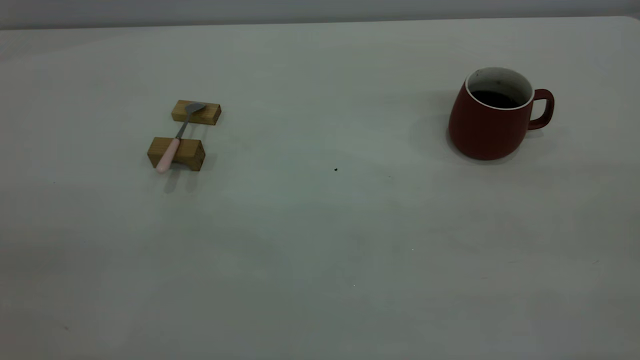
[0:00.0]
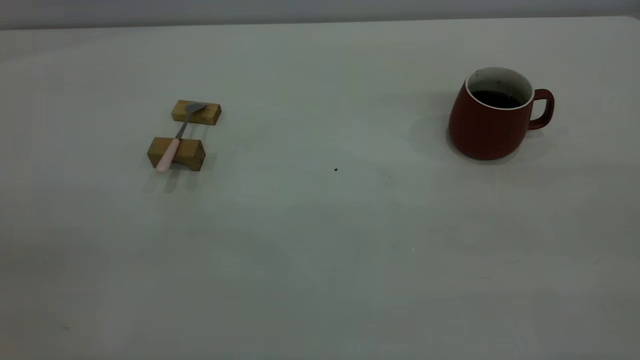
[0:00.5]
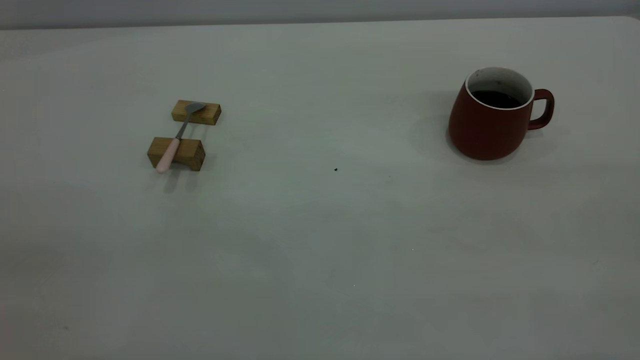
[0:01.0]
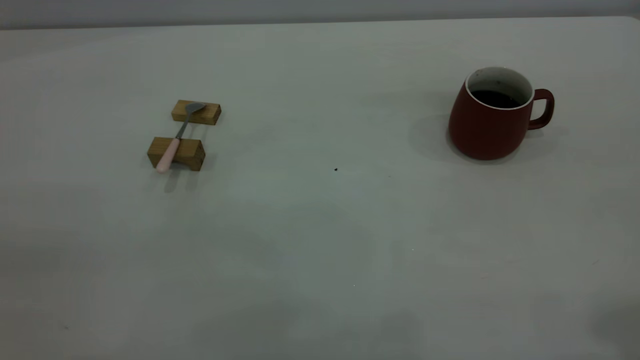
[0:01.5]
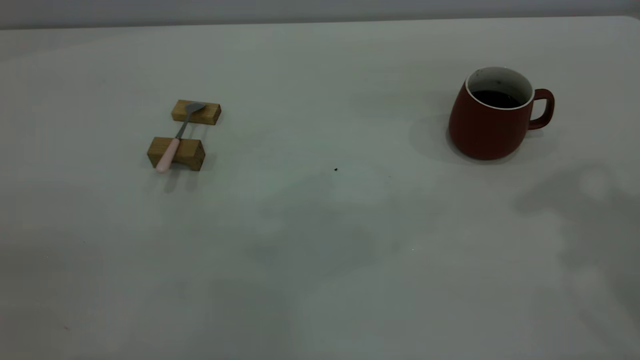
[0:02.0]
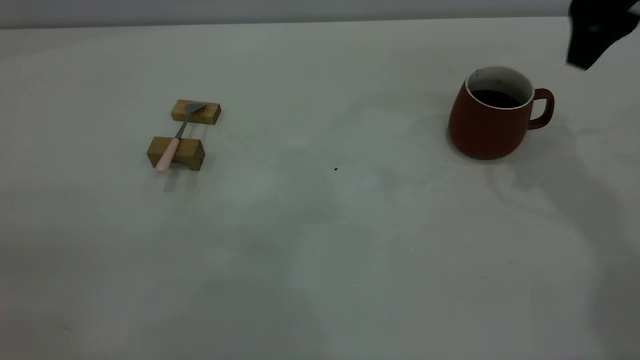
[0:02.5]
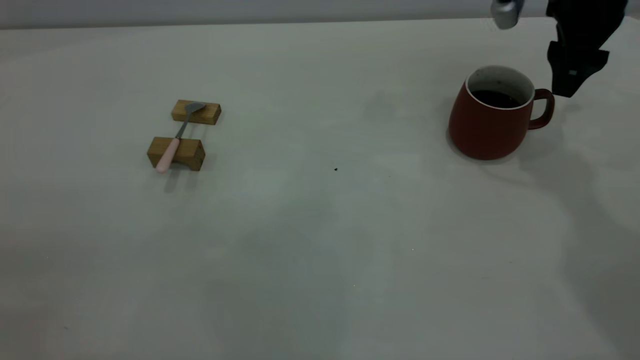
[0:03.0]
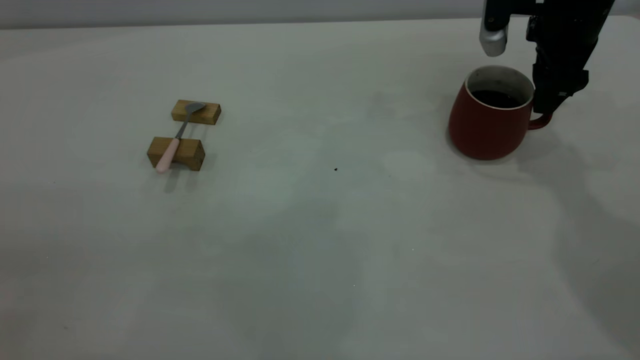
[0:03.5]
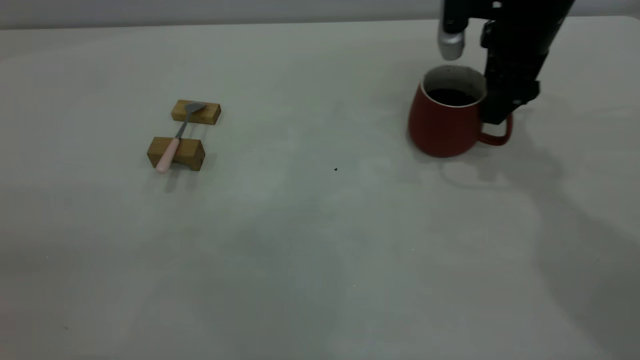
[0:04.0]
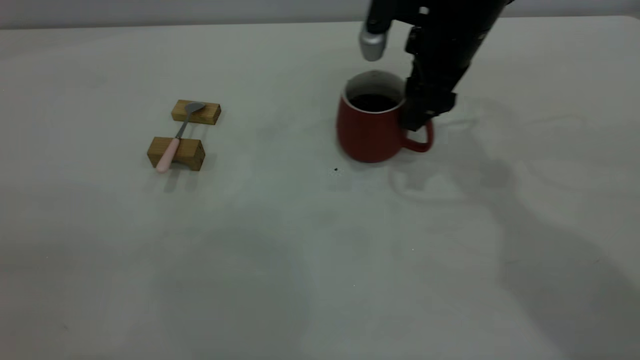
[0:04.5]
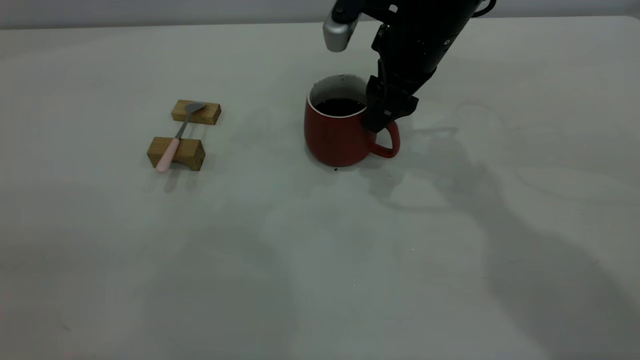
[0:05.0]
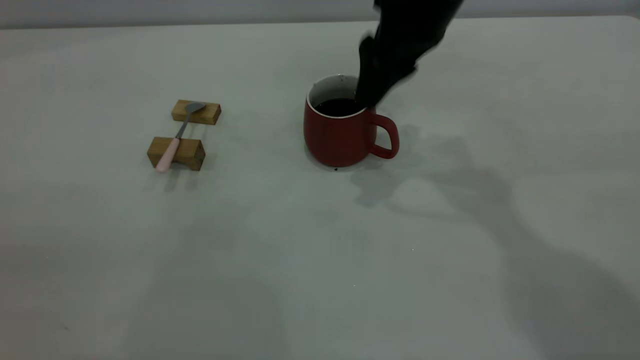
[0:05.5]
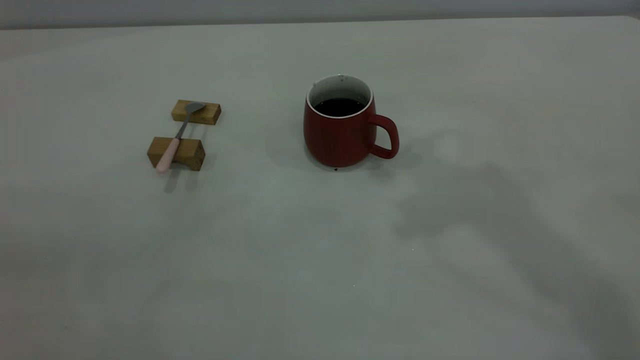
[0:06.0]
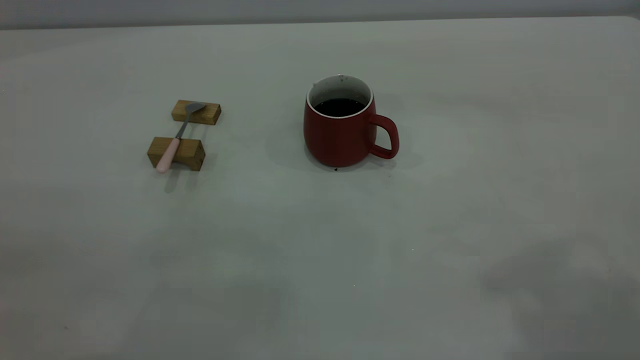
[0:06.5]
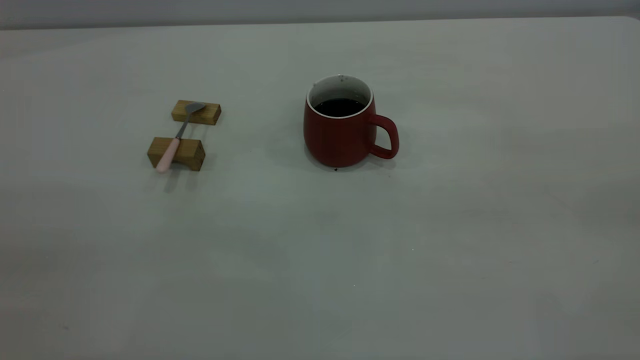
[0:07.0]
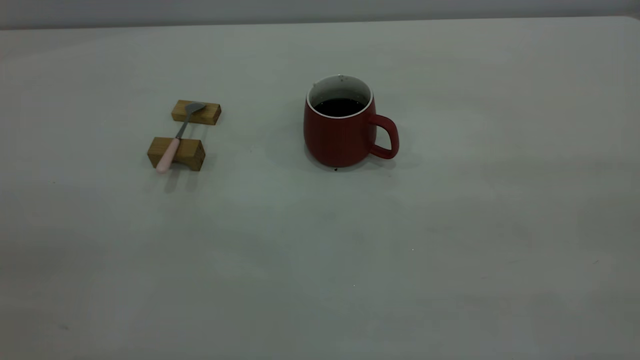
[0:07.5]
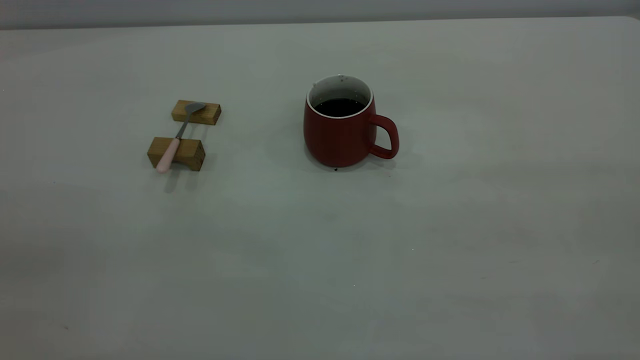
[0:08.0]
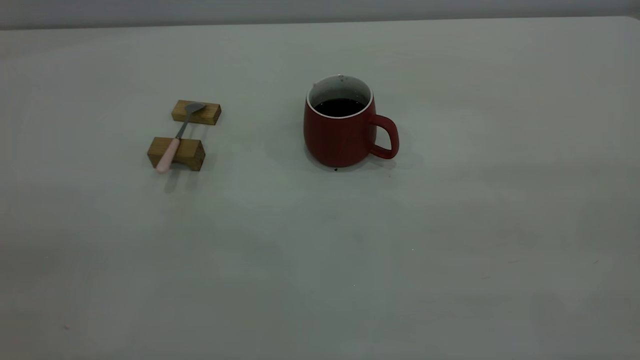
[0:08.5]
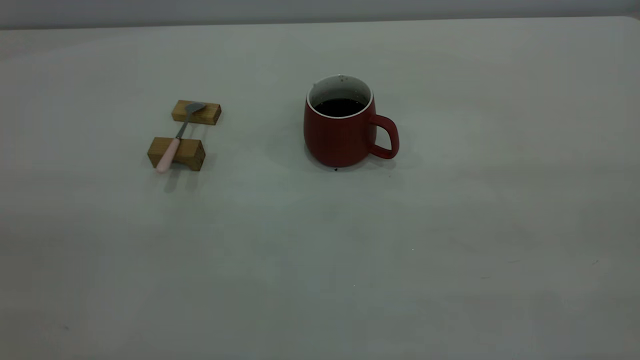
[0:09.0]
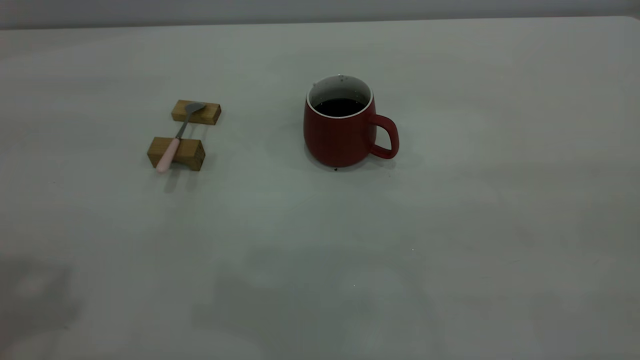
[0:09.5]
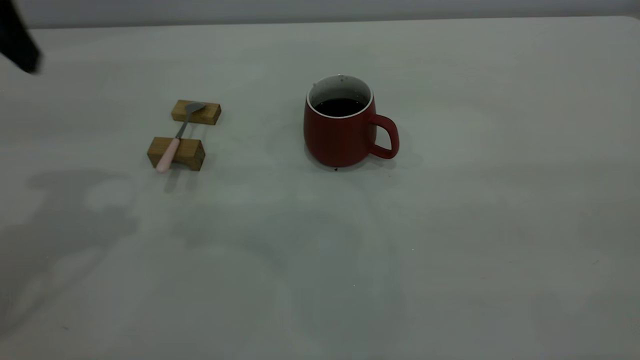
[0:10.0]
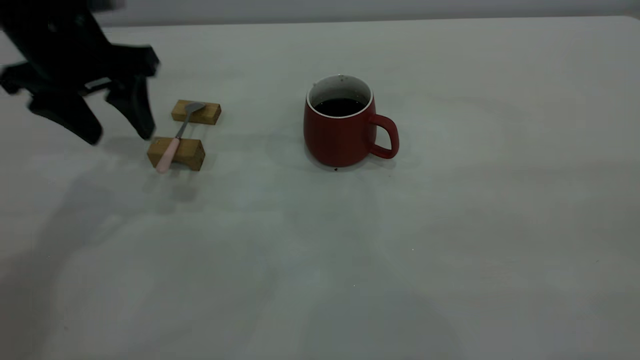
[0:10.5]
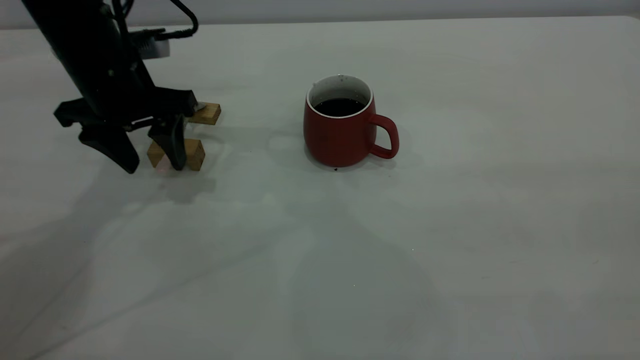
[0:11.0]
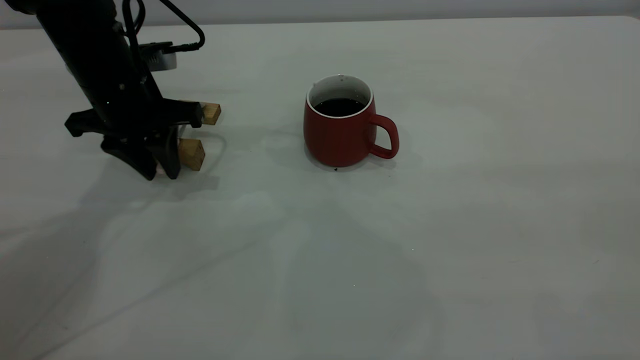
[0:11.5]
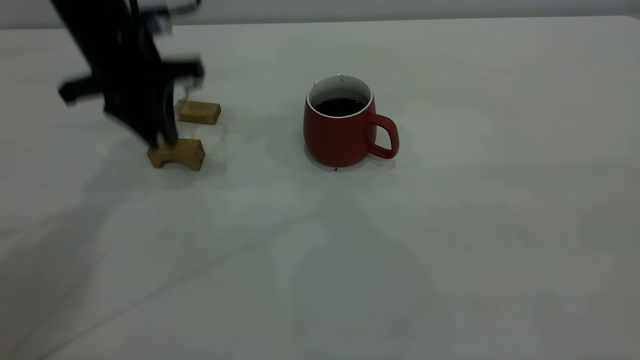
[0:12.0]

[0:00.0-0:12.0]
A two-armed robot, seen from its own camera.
Step, 0:00.0 to 0:05.5: Move the cup with coffee to the center of view.
Step, 0:06.0 to 0:12.0: Pick up the spoon.
0:02.0 to 0:04.0: The right gripper shifts some 25 cm downward, forward and to the left.
0:04.0 to 0:06.0: The right gripper is displaced upward and backward by approximately 30 cm.
0:08.0 to 0:10.0: The left gripper heads forward, covering approximately 30 cm, and opens its fingers.
0:10.0 to 0:12.0: The left gripper goes approximately 15 cm downward, forward and to the right, and closes up.

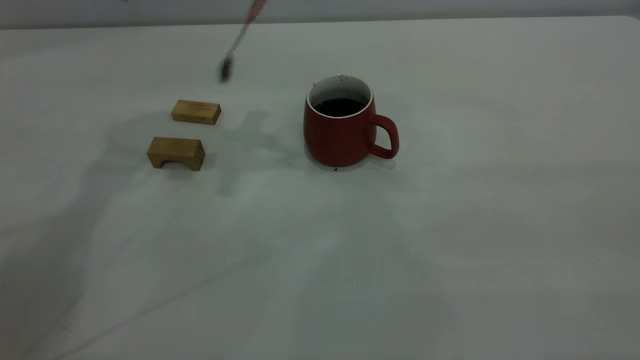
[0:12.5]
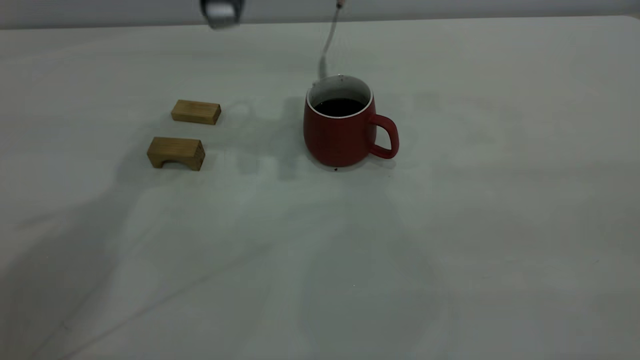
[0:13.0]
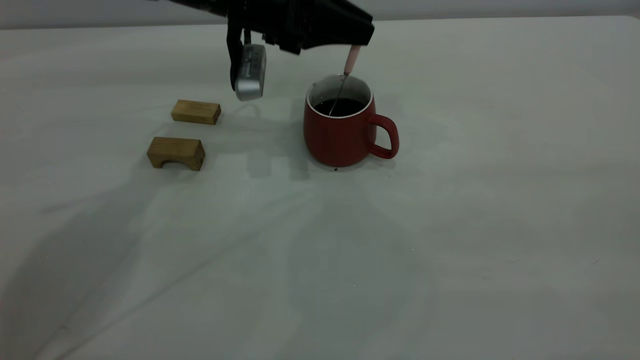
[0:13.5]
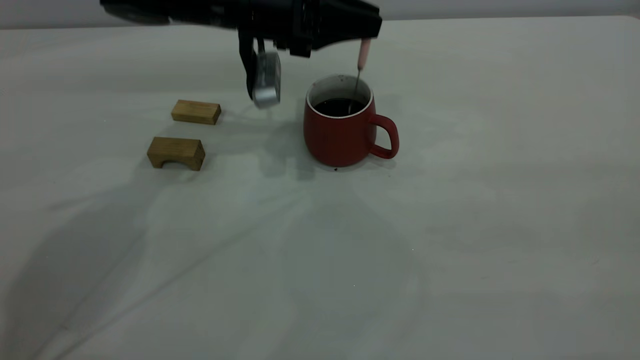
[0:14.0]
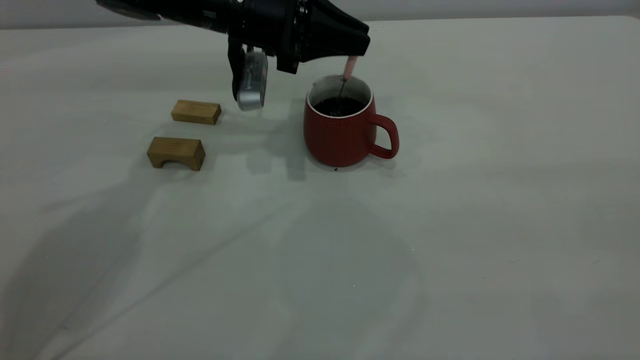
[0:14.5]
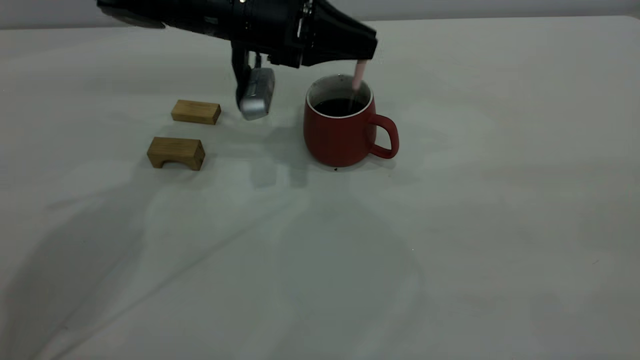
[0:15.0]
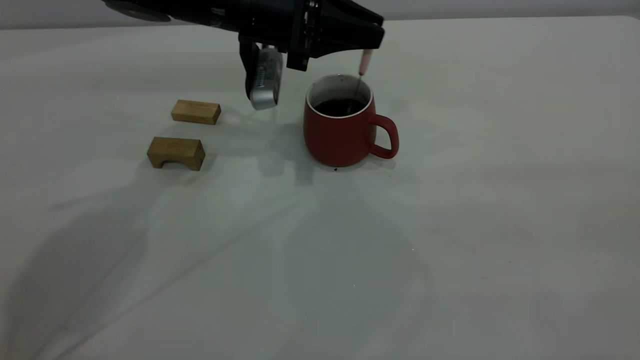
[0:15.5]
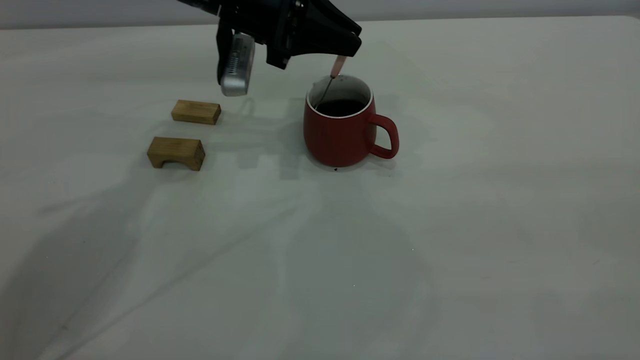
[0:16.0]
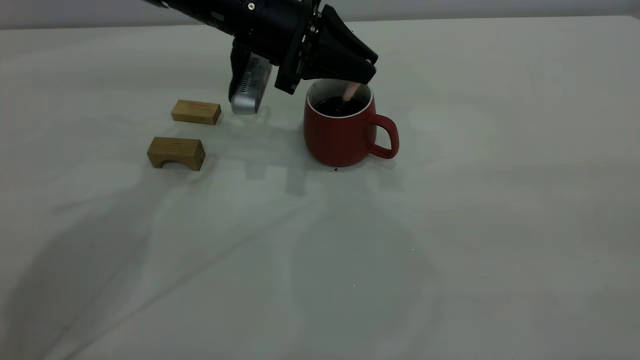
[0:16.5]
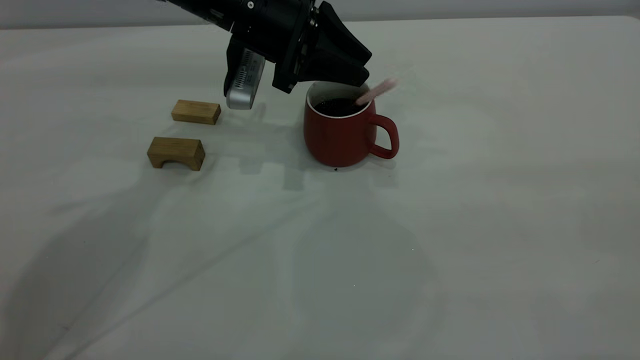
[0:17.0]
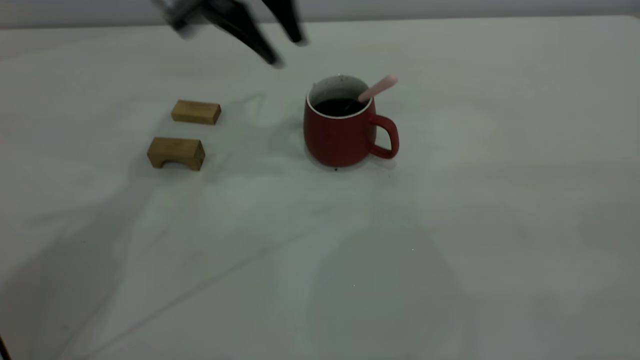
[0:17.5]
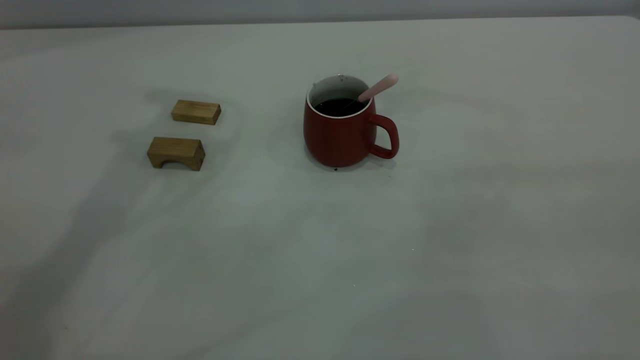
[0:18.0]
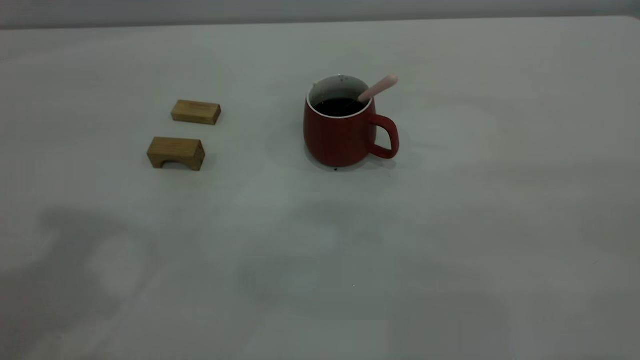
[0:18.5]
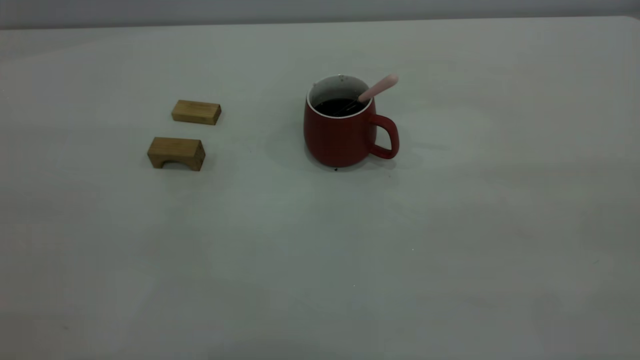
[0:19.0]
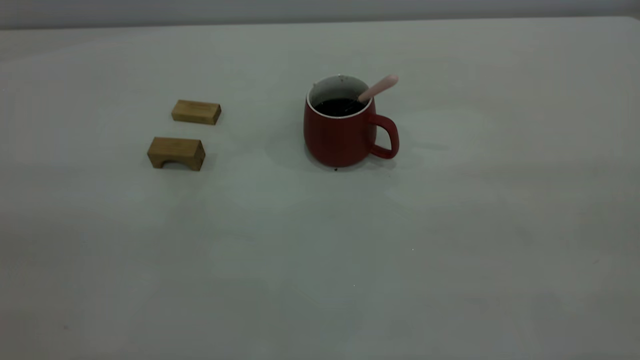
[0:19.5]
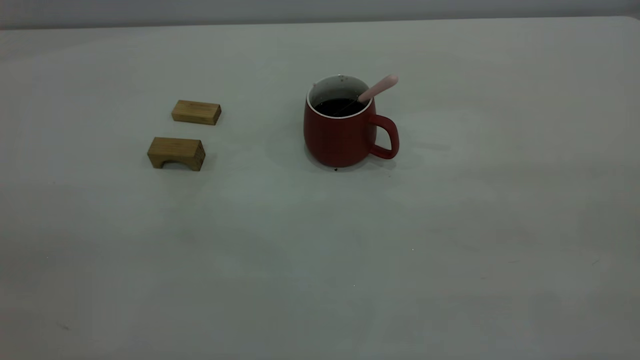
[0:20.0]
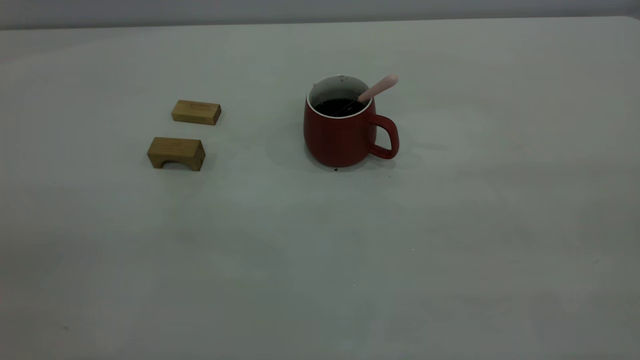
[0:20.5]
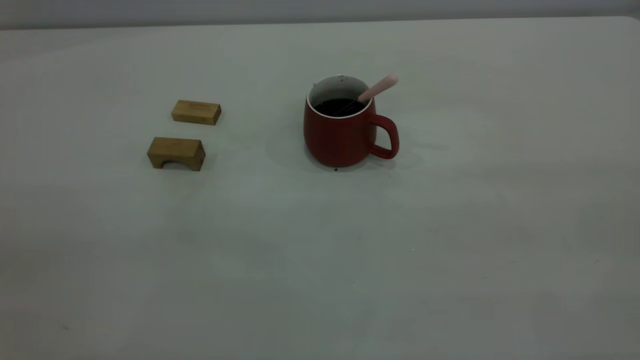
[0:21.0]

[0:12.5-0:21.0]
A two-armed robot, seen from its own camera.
Step, 0:12.5 to 0:17.0: Stir the coffee in the cup.
0:12.5 to 0:14.5: The left gripper travels downward by approximately 15 cm.
0:14.5 to 0:16.5: The grippers make only small movements.
0:16.5 to 0:19.0: The left gripper moves backward, upward and to the left, approximately 50 cm, and opens.
